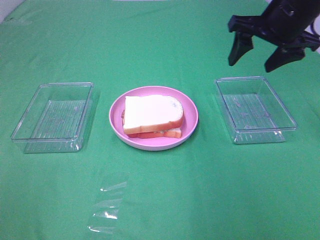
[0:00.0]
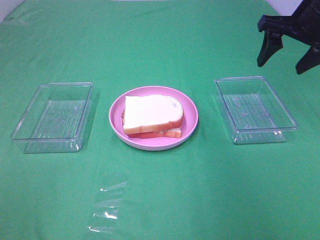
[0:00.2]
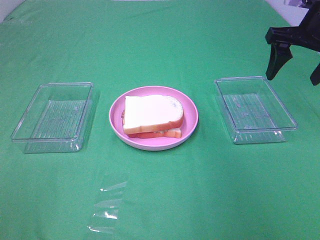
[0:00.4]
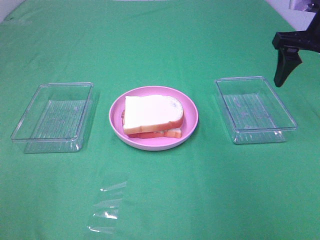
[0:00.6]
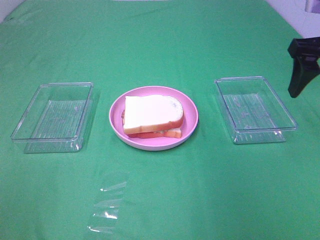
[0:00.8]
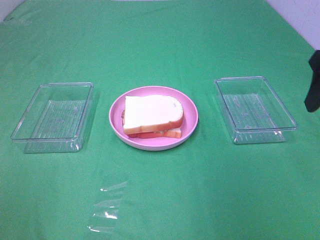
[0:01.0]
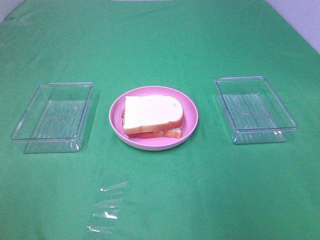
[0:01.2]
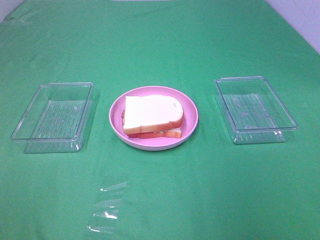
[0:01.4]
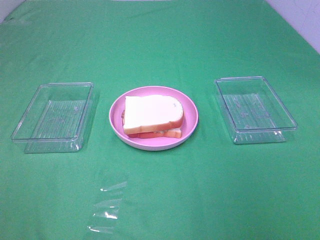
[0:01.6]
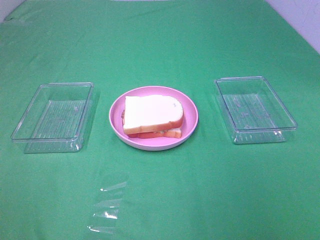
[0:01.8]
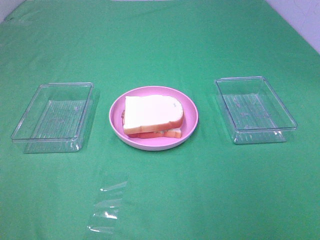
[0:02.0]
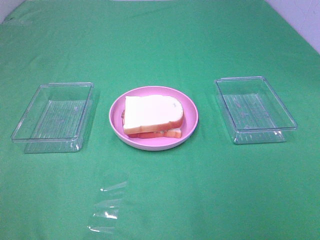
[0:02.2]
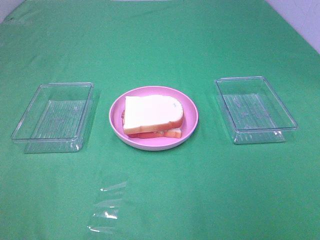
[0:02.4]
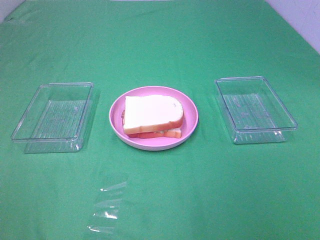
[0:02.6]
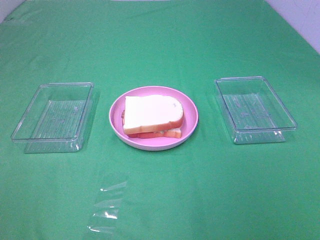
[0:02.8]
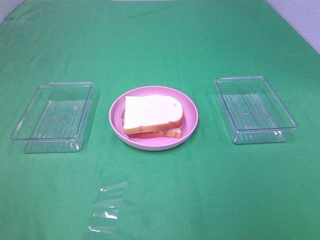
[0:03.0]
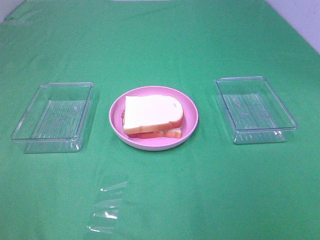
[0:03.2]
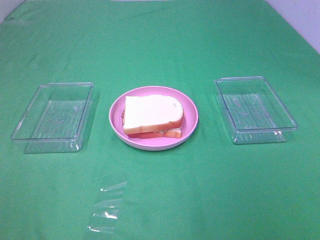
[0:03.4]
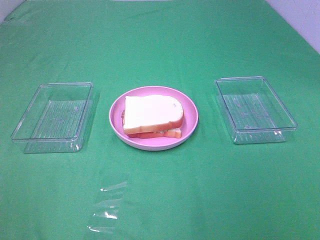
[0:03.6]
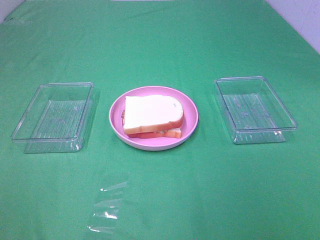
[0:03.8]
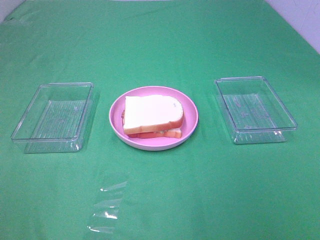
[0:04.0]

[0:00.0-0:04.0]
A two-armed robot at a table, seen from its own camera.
Task of the whole recording: Make sandwiches.
0.0 to 1.4 s: The right gripper goes roughly 25 cm backward.
2.6 to 4.0 s: The two grippers keep their place.

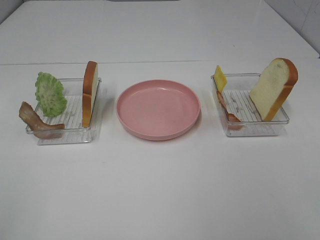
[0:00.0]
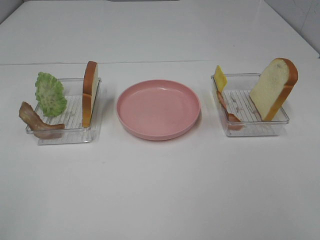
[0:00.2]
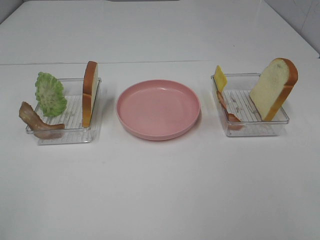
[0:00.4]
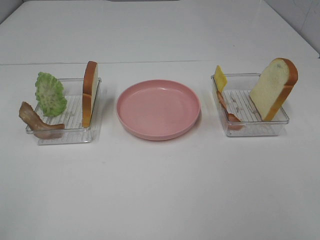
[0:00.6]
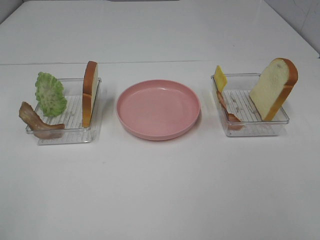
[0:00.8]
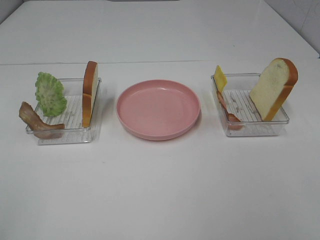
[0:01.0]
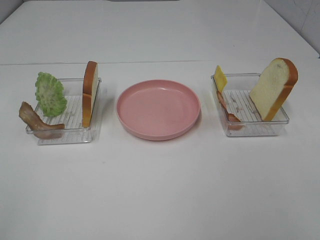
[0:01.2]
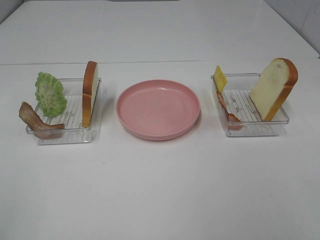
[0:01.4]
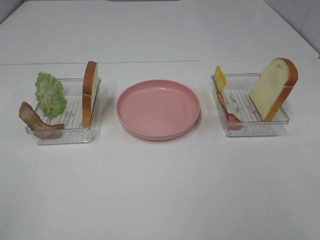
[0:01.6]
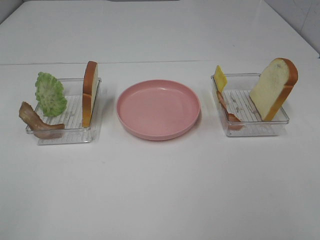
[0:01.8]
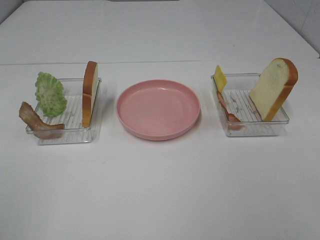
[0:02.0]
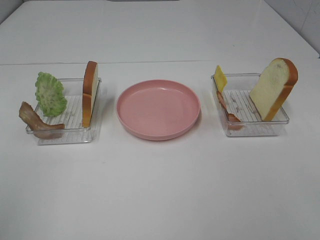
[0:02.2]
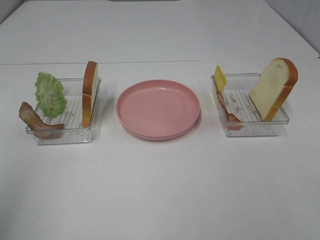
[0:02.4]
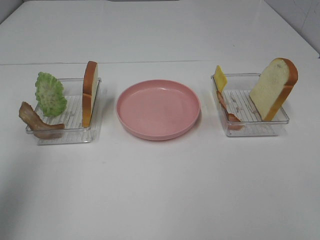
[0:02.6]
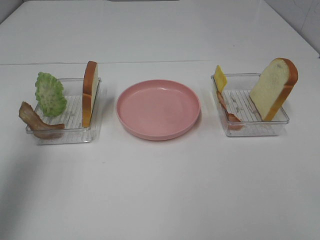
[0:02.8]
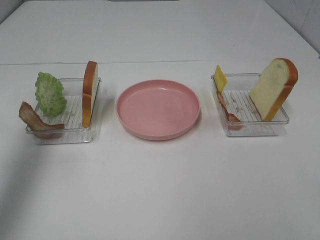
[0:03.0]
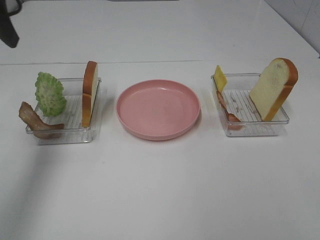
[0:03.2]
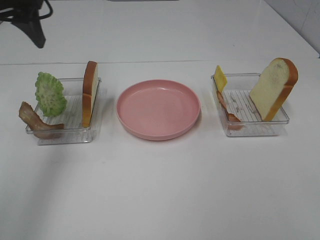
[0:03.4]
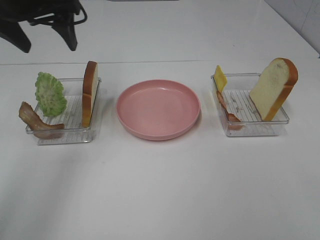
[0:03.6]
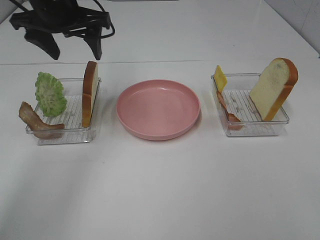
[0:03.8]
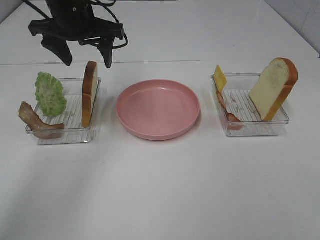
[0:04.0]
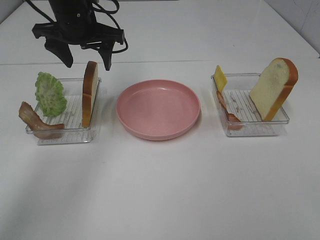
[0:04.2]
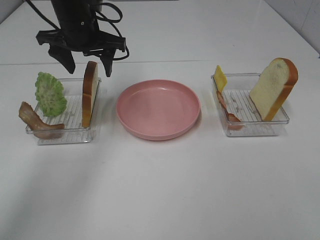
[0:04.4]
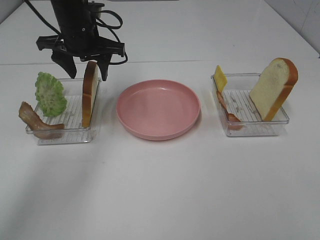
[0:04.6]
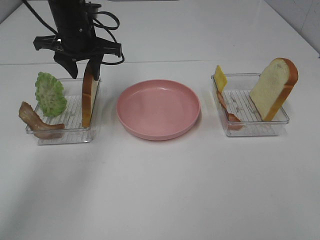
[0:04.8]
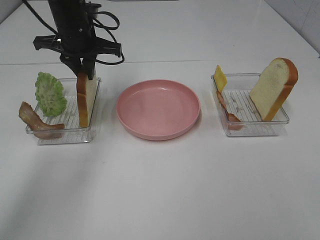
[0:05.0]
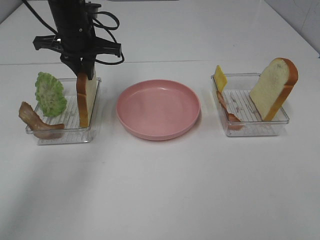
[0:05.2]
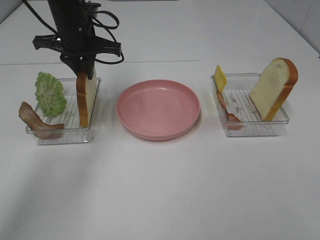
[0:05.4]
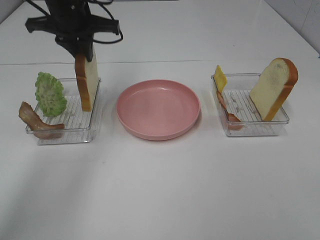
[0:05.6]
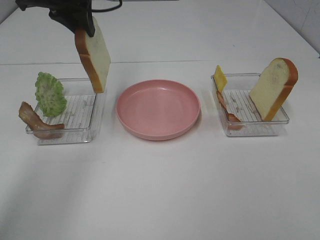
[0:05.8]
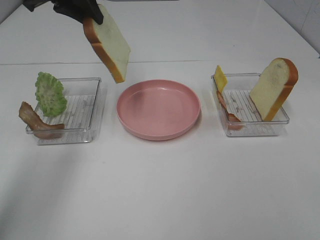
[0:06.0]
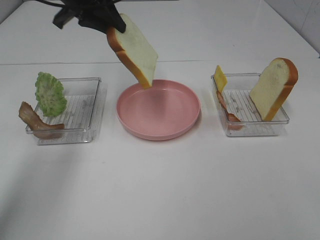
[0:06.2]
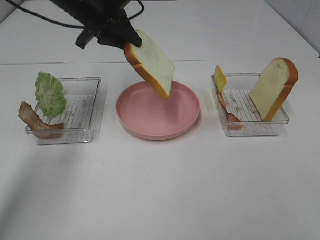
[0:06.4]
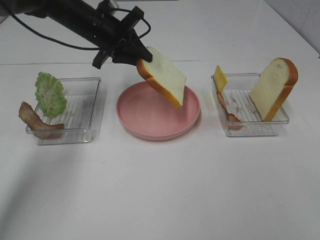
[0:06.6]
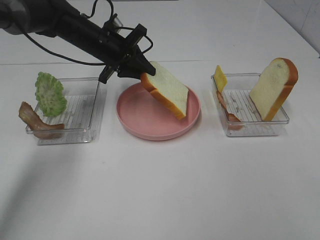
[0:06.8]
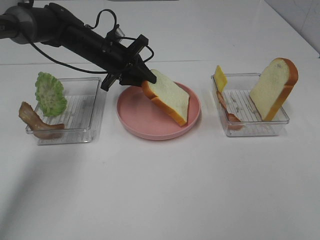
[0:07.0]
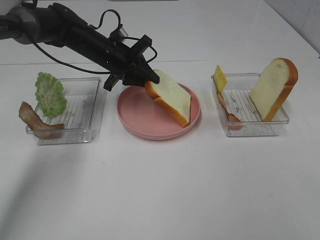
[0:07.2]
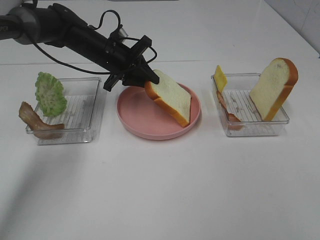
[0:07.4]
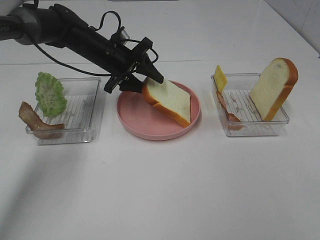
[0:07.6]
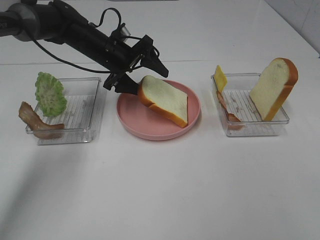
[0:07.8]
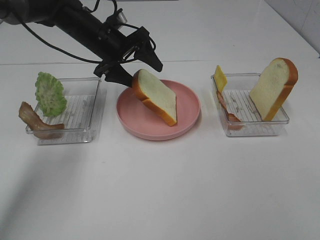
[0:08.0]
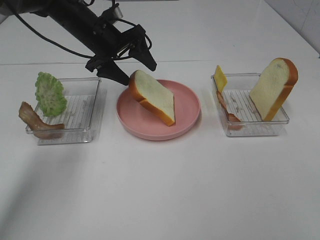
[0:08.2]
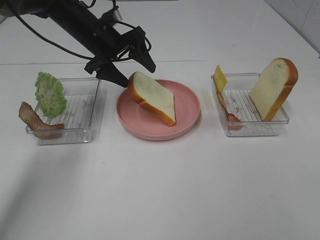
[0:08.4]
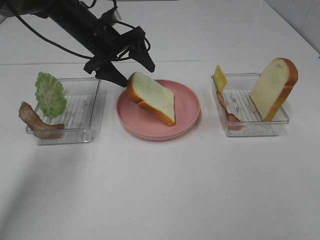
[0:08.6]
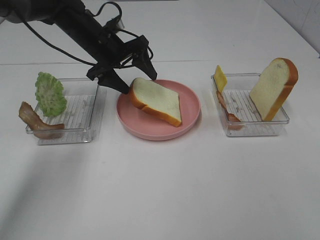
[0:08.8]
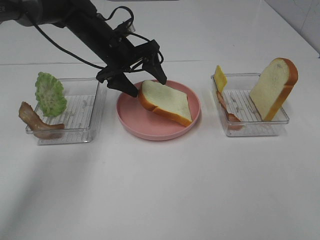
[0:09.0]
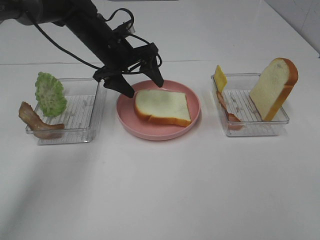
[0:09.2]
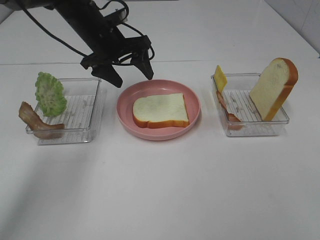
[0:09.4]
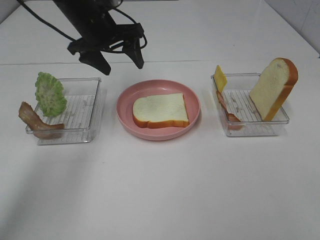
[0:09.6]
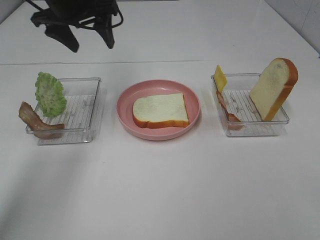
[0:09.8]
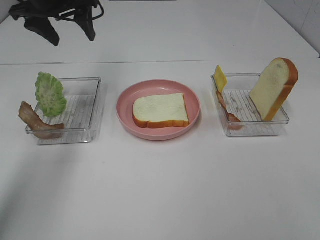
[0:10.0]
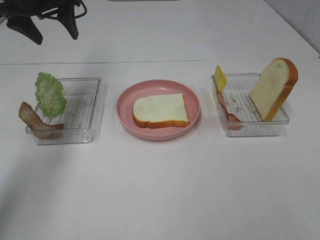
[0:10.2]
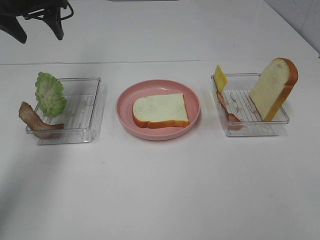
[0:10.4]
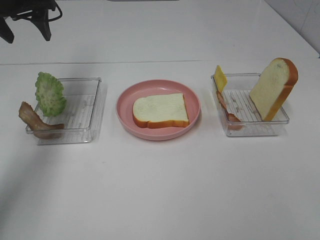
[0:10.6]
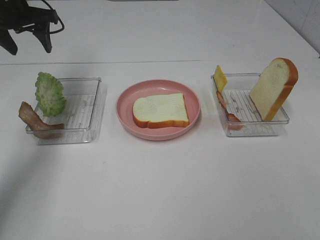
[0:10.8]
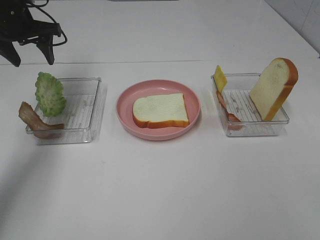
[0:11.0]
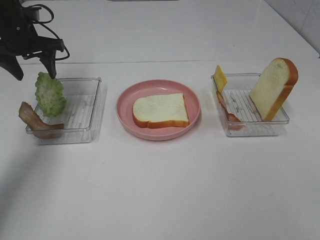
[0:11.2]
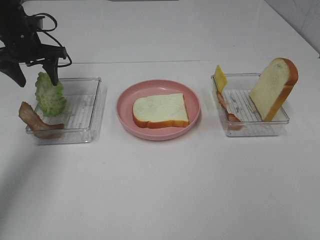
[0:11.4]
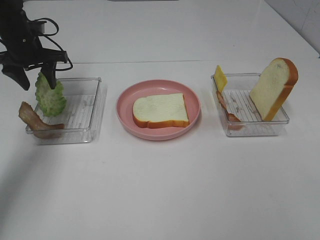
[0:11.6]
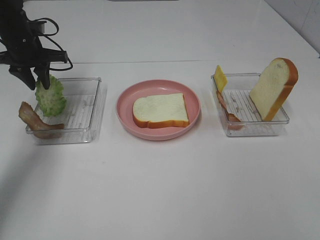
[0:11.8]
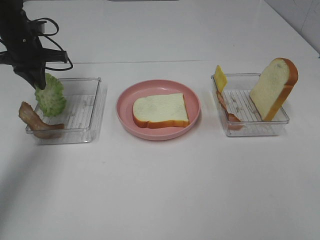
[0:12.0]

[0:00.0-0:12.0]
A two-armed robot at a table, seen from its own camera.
Task of the whole recording: Make sandwiches.
Step, 0.0 to 5.2 s: Left hand:grab the bread slice.
Step, 5.4 to 9.4 s: Left hand:place the bread slice on the plate.
Step, 9.6 to 12.0 s: Left hand:grab the lettuce slice.
0.0 to 1.6 s: The two grippers keep their place.
1.6 to 3.0 s: The left gripper is displaced forward by roughly 30 cm.
3.0 to 4.4 s: The left gripper travels to the right, forward and downward by some 25 cm.
4.4 to 6.0 s: The left gripper shifts some 10 cm upward, and closes.
6.0 to 7.6 s: The left gripper shifts approximately 20 cm downward, and opens up.
7.6 to 9.0 s: The left gripper opens up.
9.0 to 10.4 s: The left gripper goes some 20 cm to the left and upward.
10.4 to 12.0 s: The left gripper travels downward by some 10 cm, and closes its fingers.

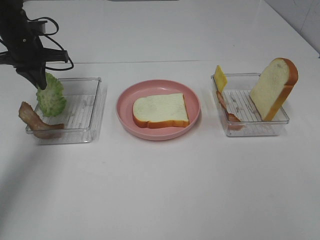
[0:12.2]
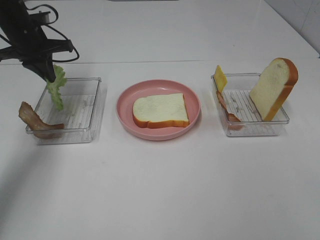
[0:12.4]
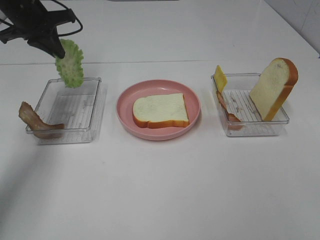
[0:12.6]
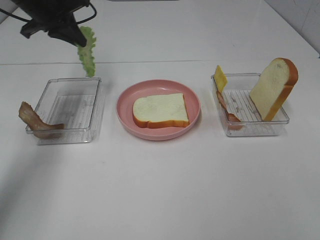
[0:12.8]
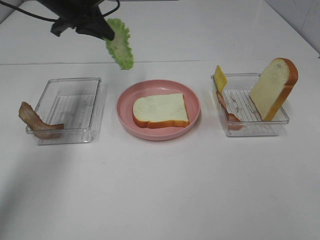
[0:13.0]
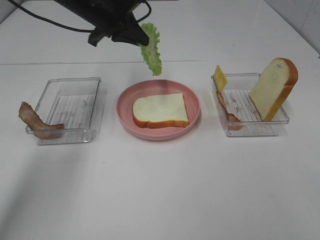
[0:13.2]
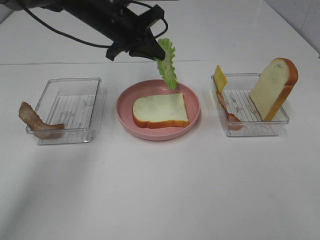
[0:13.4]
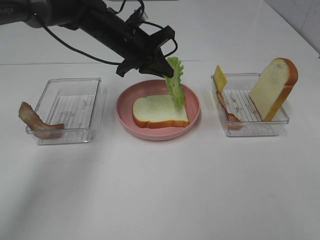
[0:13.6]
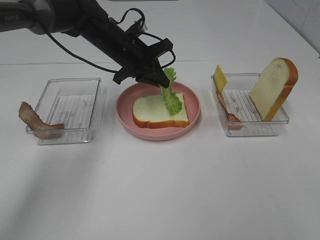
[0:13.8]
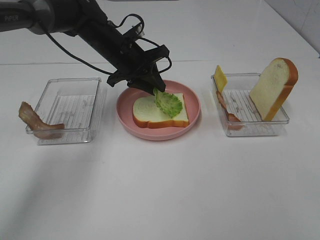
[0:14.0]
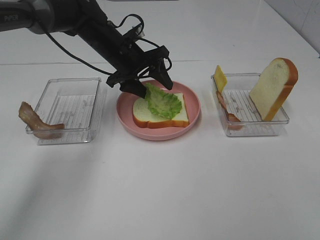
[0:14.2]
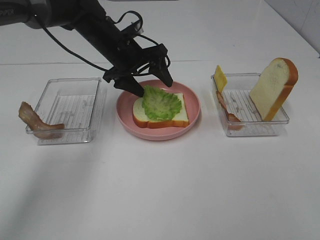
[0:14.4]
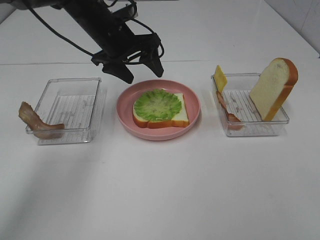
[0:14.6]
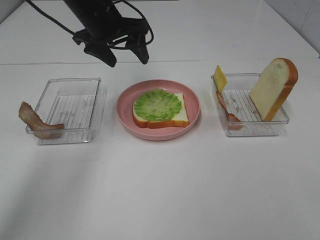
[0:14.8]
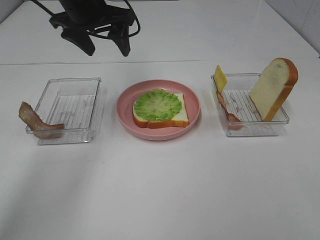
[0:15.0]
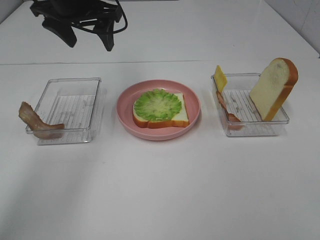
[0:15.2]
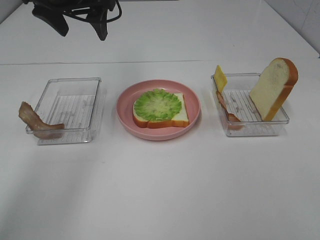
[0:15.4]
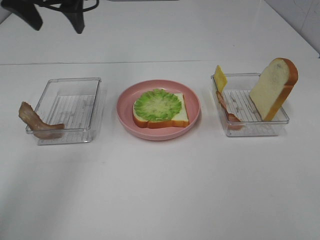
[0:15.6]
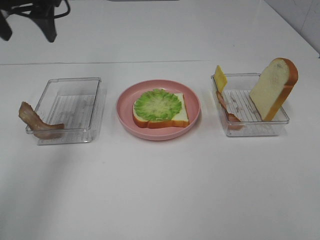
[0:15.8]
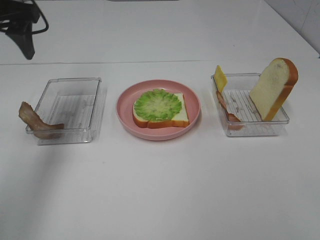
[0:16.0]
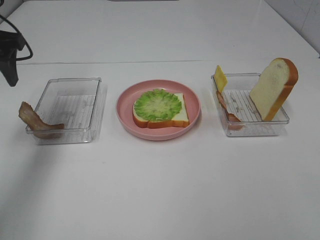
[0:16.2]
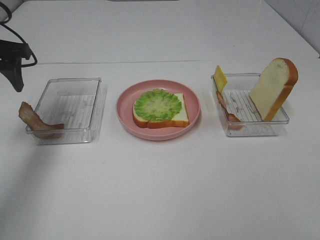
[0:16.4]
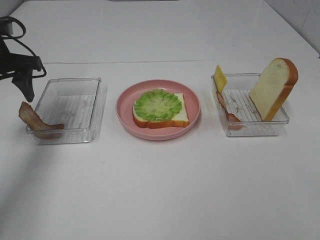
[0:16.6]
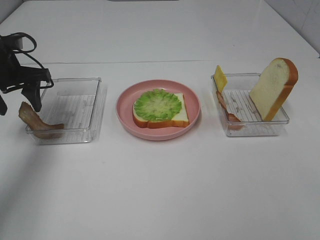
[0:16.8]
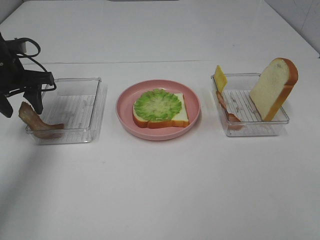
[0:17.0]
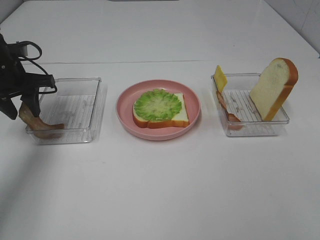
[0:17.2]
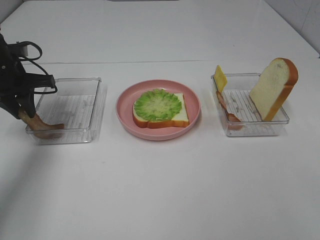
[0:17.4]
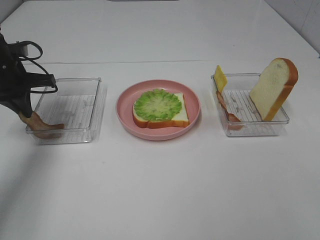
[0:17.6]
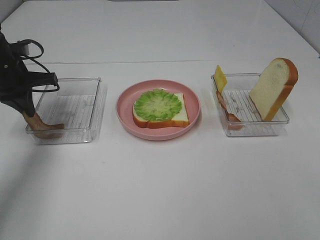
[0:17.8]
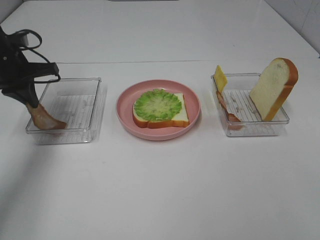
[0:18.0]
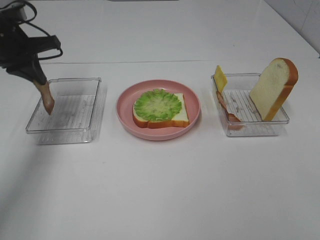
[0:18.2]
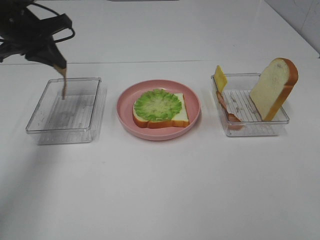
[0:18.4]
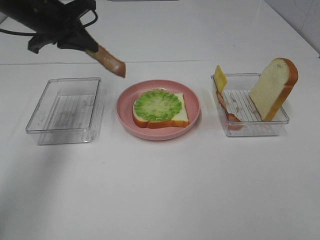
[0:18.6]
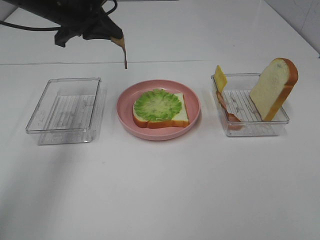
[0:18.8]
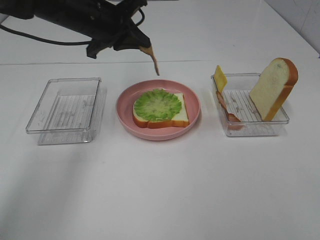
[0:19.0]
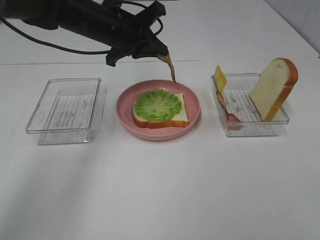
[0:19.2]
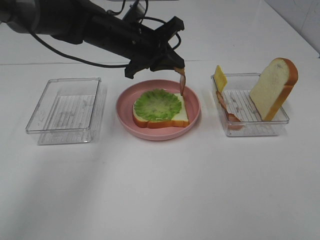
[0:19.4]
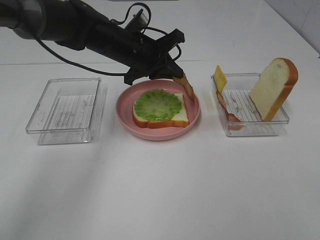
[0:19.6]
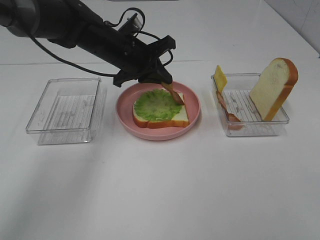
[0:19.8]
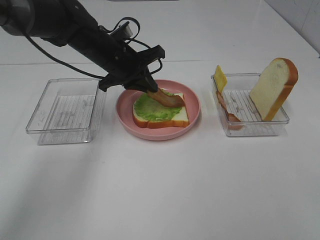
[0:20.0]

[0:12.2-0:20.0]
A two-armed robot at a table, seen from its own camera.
Task of the whole recording: Make sandwiches.
Step, 12.2 to 14.8 s: Left hand:place the lettuce slice on the bread slice.
Step, 15.0 to 17.8 s: Left hand:grab the bacon.
12.2 to 13.8 s: The left gripper travels to the right by about 20 cm.
13.8 to 15.4 s: The left gripper travels upward and to the left by about 15 cm, and opens up.
15.4 to 16.8 s: The left gripper shifts about 20 cm to the left and downward.
16.8 to 18.4 s: The left gripper moves upward, about 5 cm, and closes up.
18.4 to 20.0 s: The left gripper moves to the right and downward, roughly 15 cm.
